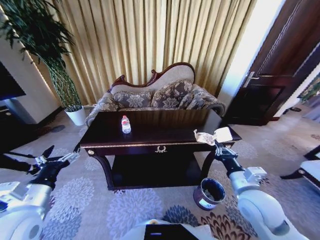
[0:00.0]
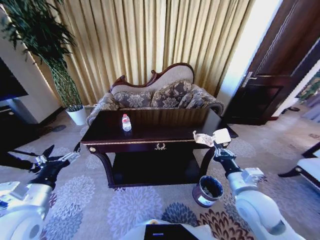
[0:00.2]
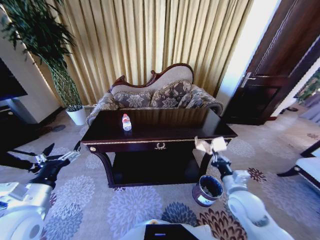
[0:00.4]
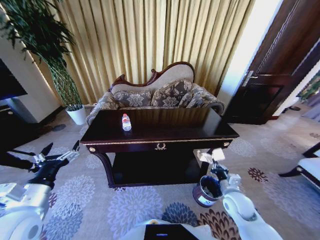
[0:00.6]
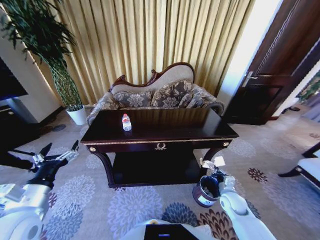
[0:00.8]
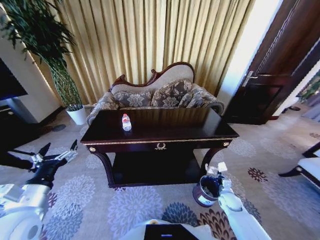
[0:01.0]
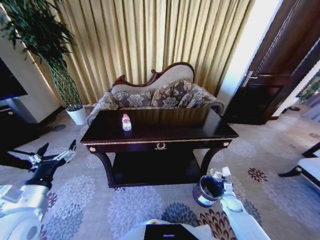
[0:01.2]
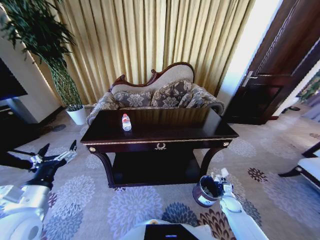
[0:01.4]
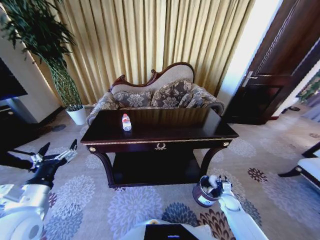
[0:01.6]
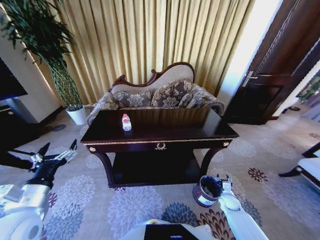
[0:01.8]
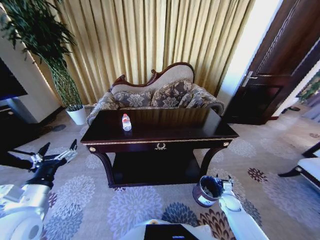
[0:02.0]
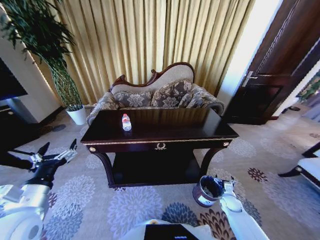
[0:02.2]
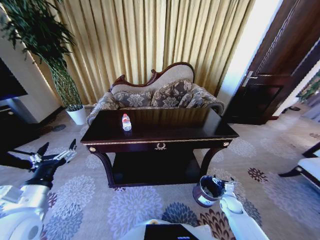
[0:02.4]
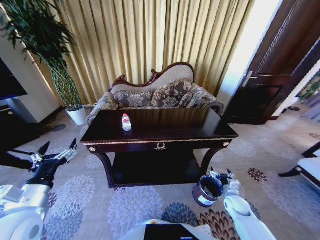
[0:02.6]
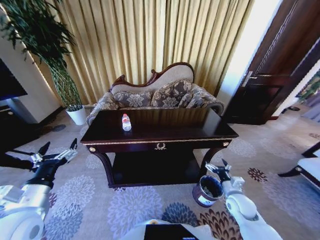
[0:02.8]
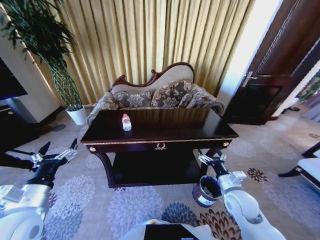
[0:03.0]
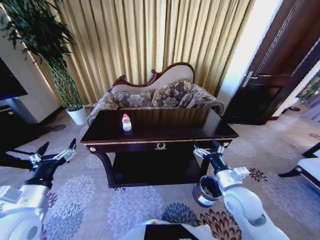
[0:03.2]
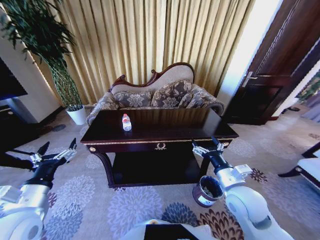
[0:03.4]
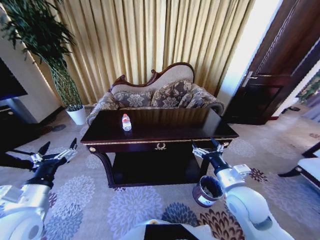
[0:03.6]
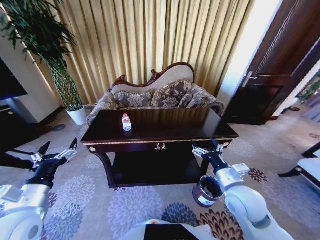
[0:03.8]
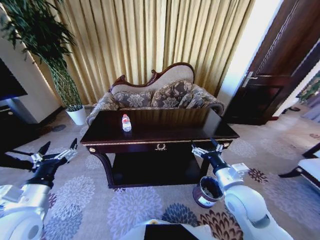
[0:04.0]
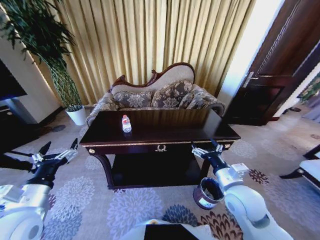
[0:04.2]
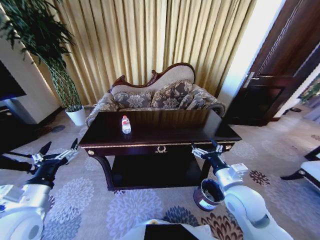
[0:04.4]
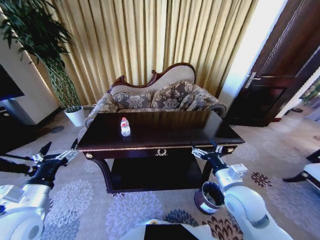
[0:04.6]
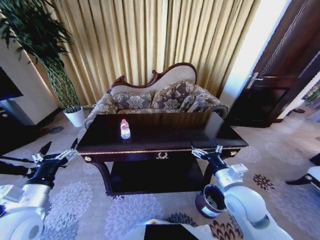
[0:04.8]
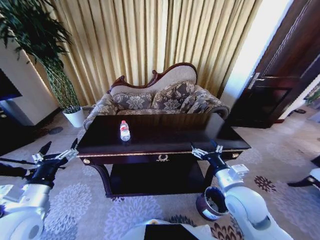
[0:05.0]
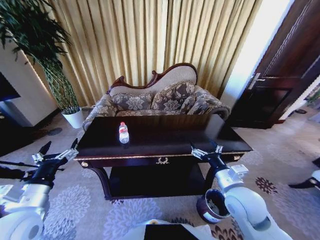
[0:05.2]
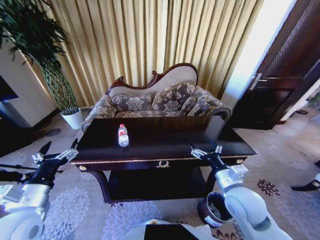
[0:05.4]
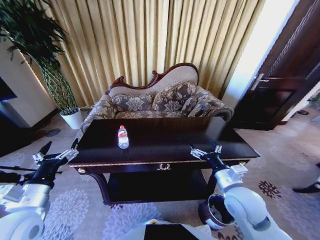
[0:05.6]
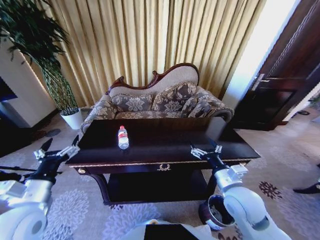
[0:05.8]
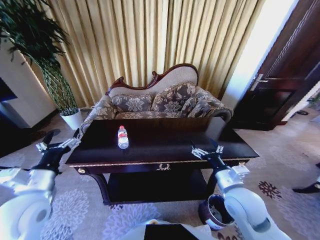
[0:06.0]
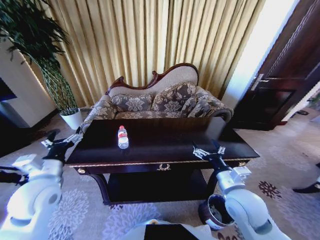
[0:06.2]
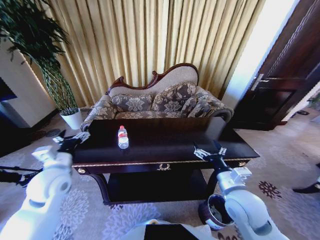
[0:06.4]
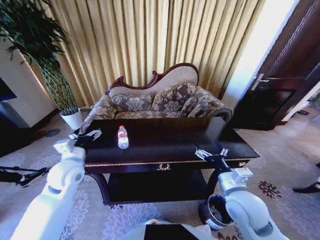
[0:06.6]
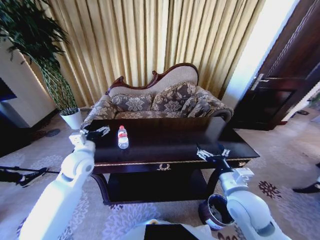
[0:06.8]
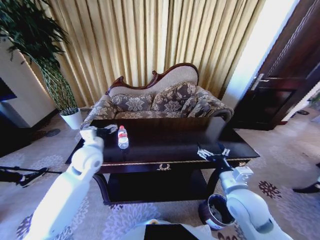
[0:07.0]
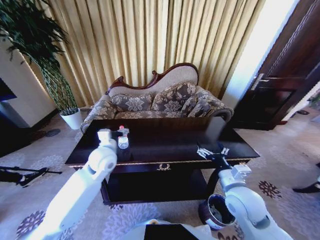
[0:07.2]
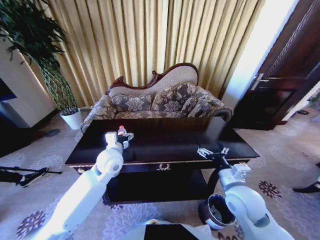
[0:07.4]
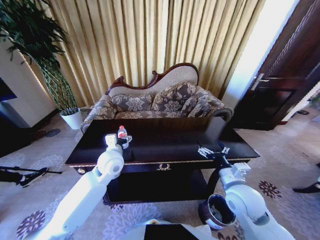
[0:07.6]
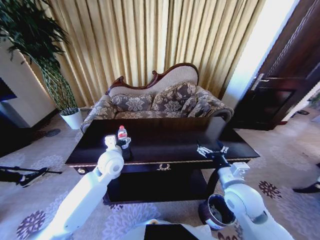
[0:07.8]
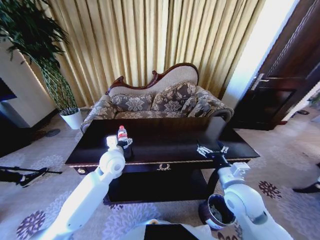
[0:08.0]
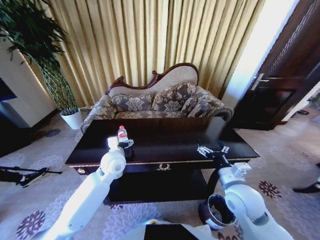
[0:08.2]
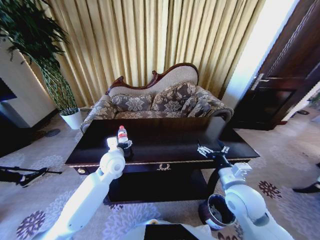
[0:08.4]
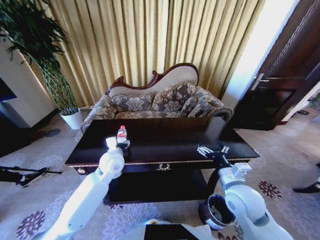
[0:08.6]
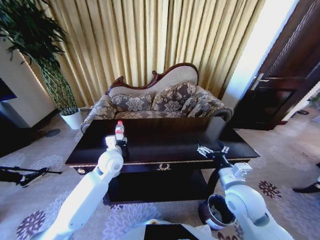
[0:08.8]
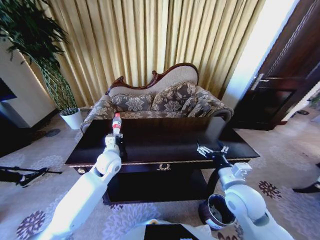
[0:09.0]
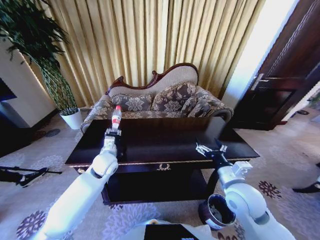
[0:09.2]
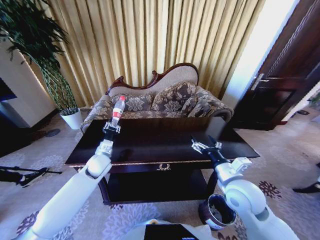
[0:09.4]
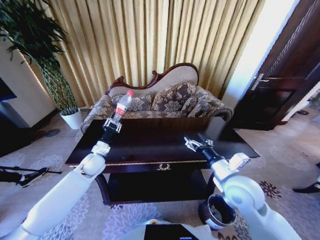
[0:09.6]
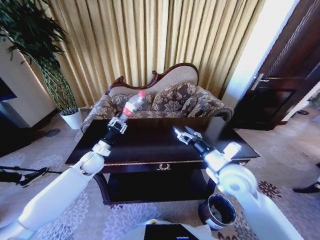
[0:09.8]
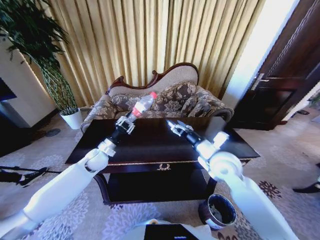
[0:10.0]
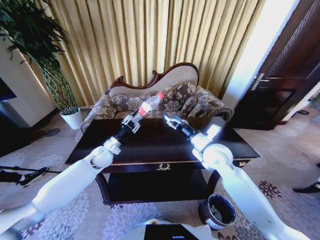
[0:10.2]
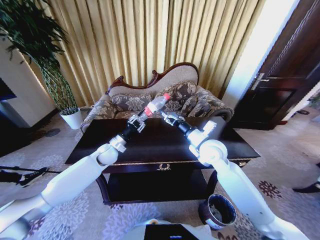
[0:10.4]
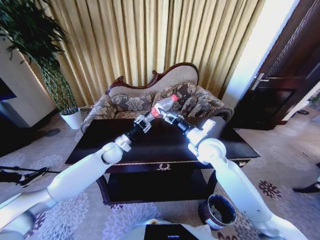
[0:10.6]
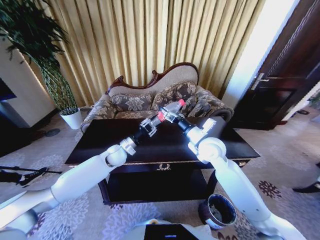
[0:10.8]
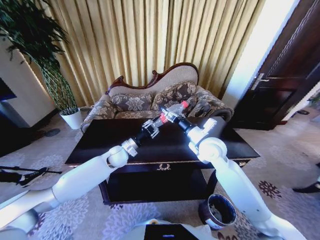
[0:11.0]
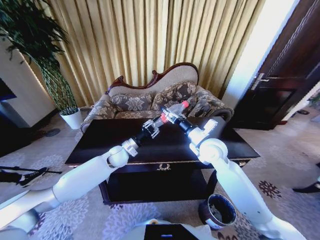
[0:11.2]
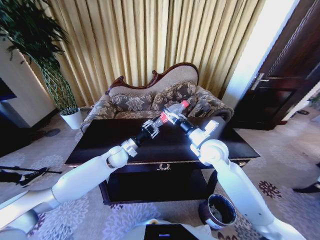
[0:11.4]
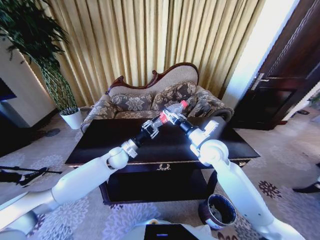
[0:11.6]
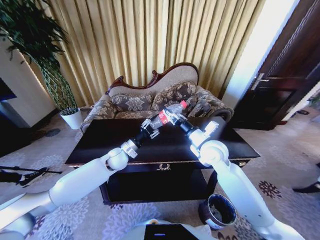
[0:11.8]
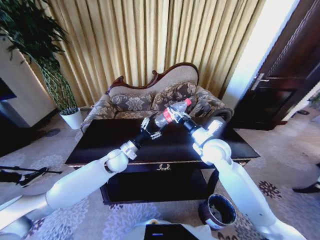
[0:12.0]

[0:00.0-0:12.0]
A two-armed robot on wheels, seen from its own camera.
Task of the whole recording: Move to the front of the table and place the trash on the table into the trash bin.
0:00.0 to 0:01.6: The right gripper is displaced downward by some 30 cm.
0:01.6 to 0:03.0: The right gripper moves upward and to the left, some 25 cm, and opens its fingers.
0:03.0 to 0:04.4: The right gripper is displaced upward by approximately 10 cm.
0:06.0 to 0:07.6: The left gripper travels to the right and forward by some 25 cm.
0:07.6 to 0:09.0: The left gripper closes.
0:09.0 to 0:10.4: The right gripper travels forward by approximately 15 cm. Meanwhile the left gripper goes some 5 cm forward.
0:10.4 to 0:12.0: The right gripper closes up. Meanwhile the left gripper goes approximately 5 cm to the right, and opens.

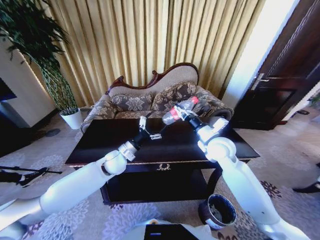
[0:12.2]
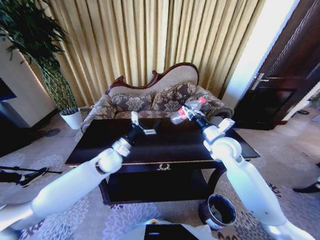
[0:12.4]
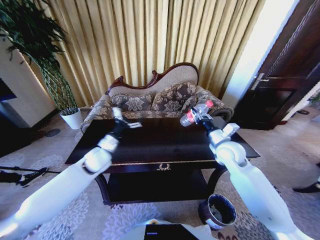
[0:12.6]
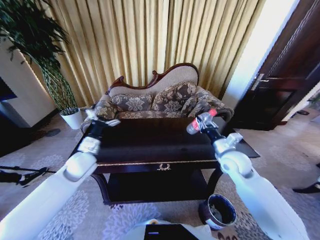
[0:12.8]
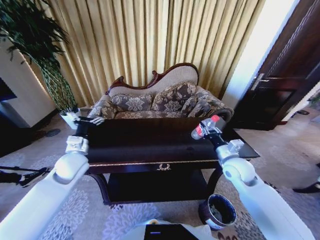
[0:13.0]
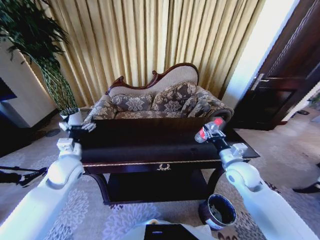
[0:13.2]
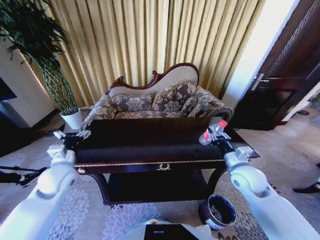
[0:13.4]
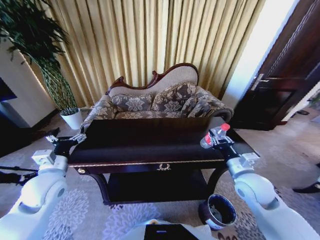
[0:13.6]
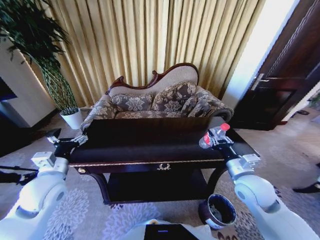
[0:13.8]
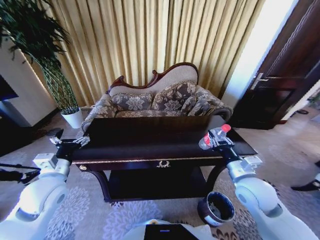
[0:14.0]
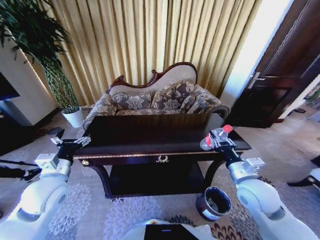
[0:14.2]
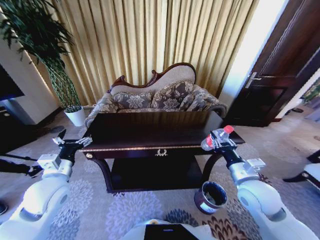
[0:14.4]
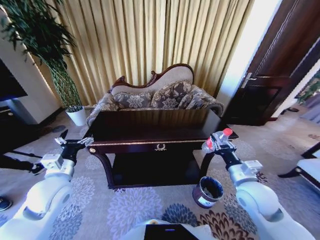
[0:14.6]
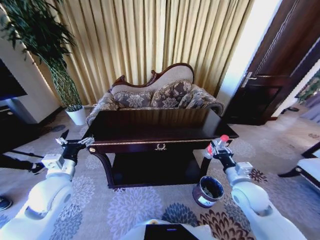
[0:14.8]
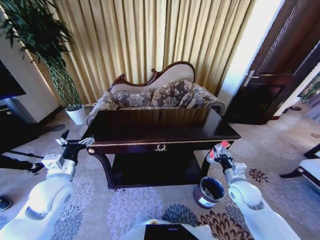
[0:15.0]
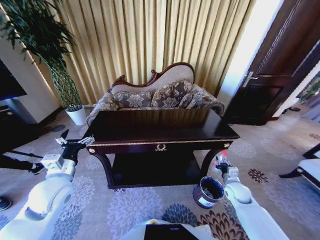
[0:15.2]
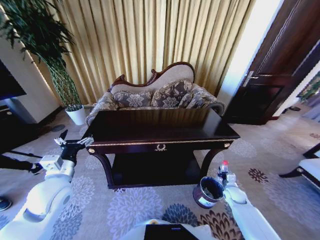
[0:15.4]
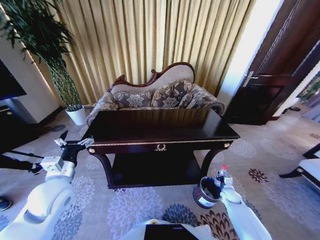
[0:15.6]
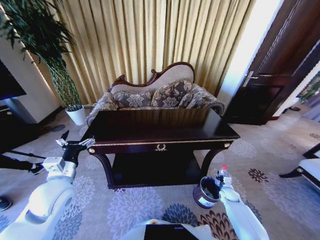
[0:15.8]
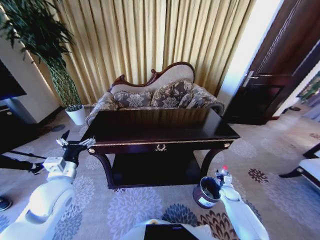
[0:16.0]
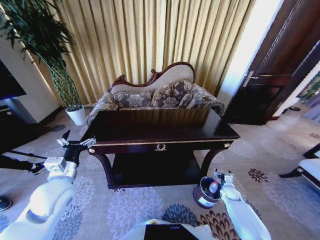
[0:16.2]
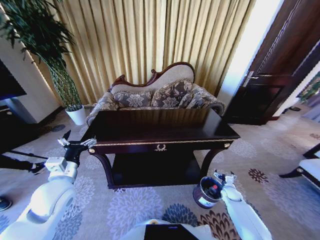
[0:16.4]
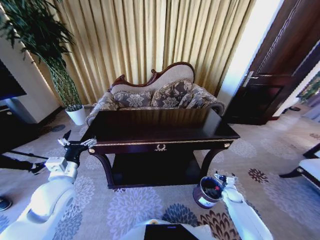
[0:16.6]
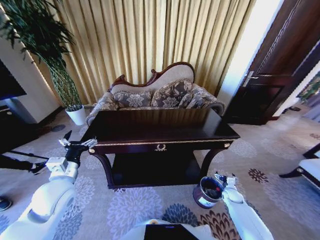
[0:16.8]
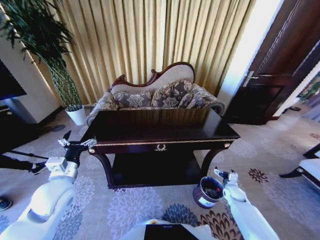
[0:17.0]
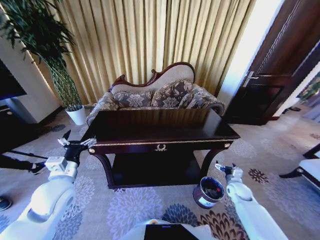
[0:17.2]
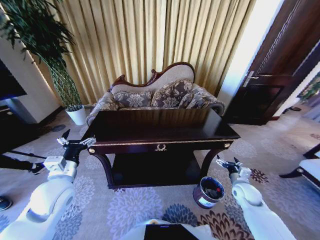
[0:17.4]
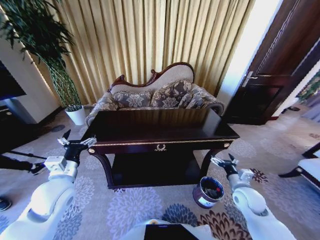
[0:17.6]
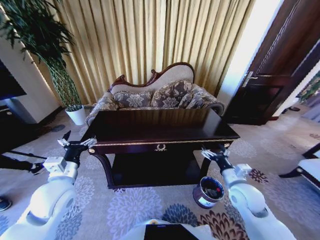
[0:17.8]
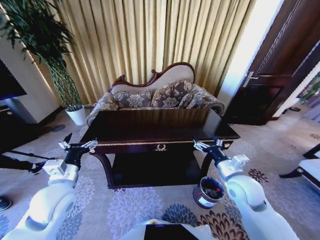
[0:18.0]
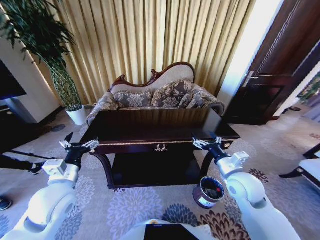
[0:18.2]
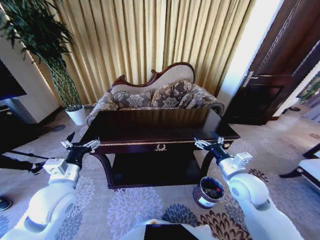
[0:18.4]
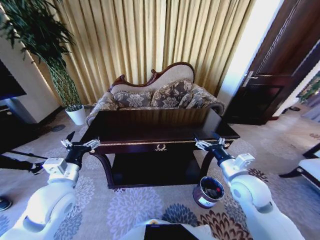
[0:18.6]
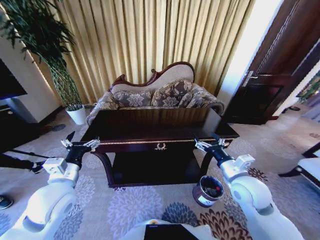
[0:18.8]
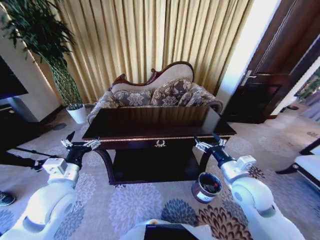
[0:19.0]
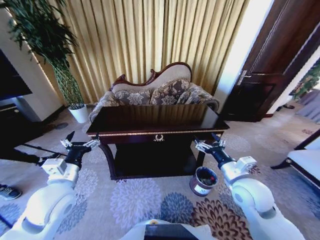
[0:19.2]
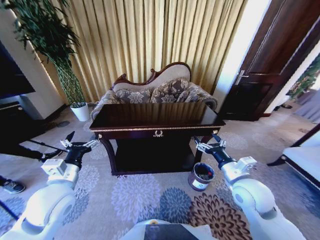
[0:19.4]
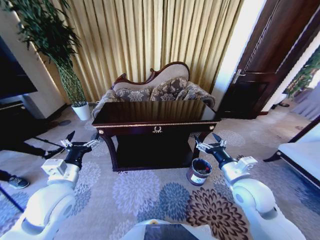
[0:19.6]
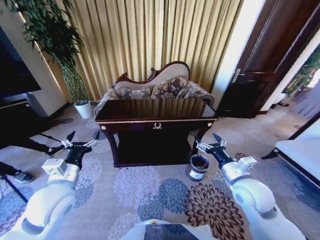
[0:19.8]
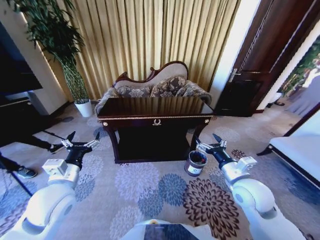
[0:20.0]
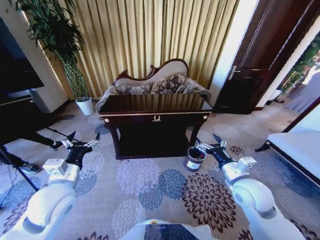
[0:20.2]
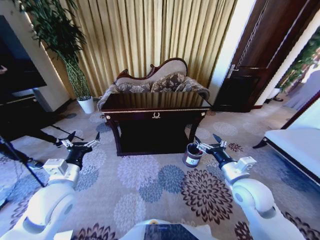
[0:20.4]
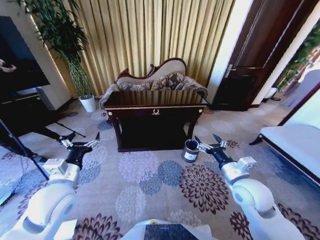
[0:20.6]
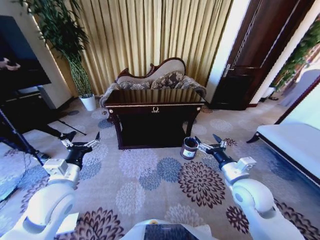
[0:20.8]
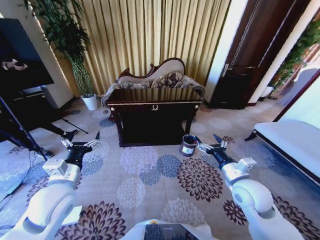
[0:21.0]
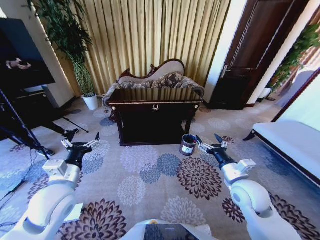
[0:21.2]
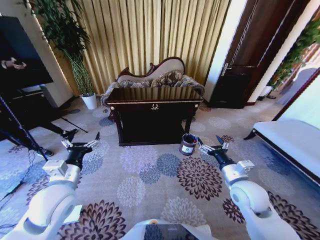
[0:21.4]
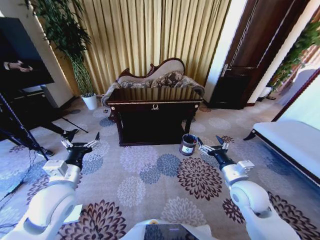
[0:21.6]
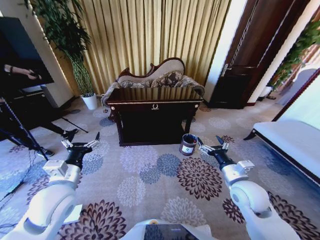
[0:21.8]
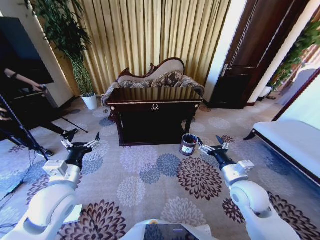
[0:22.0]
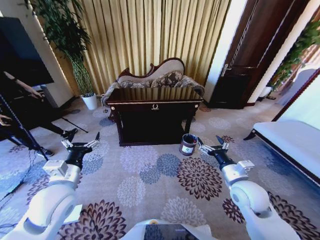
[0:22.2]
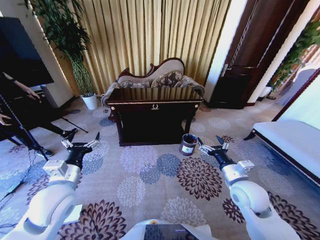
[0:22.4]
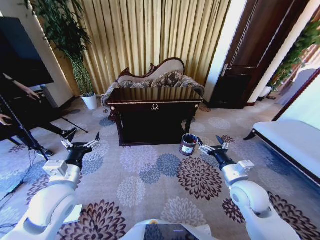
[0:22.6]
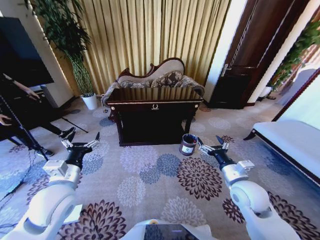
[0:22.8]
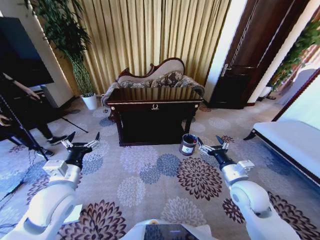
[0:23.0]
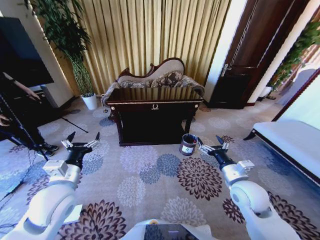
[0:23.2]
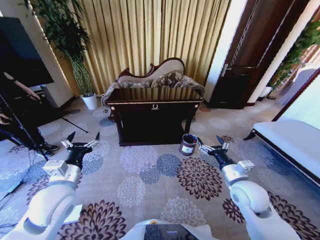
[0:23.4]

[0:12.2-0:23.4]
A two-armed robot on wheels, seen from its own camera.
Task of the whole recording: Move to the front of the table and place the trash on the table into the trash bin.
0:12.2 to 0:13.8: The right gripper goes about 15 cm backward and to the right. Meanwhile the left gripper travels to the left, backward and upward by roughly 20 cm.
0:13.8 to 0:15.4: The right gripper travels downward and to the right by approximately 30 cm.
0:15.4 to 0:17.0: The right gripper opens.
0:17.0 to 0:18.6: The right gripper is displaced upward and to the left by roughly 30 cm.
0:21.8 to 0:23.4: Neither gripper changes place.
